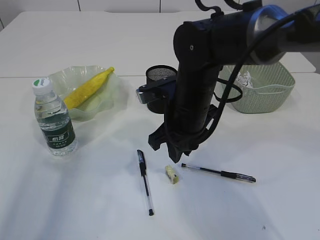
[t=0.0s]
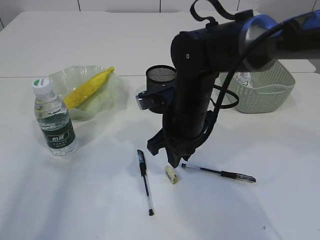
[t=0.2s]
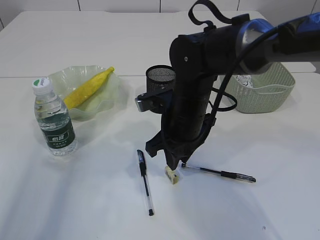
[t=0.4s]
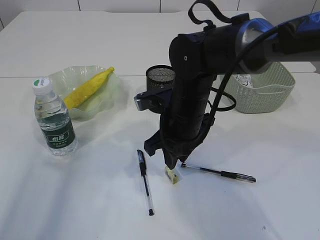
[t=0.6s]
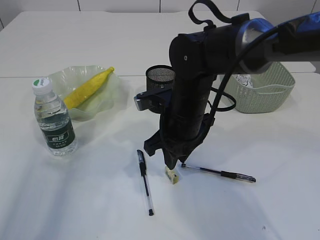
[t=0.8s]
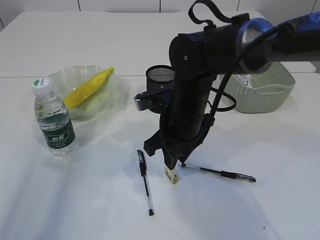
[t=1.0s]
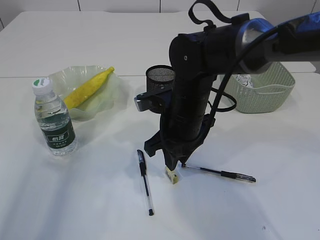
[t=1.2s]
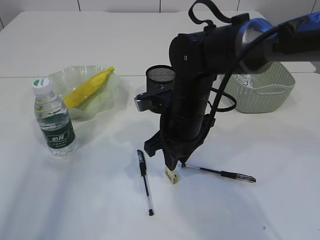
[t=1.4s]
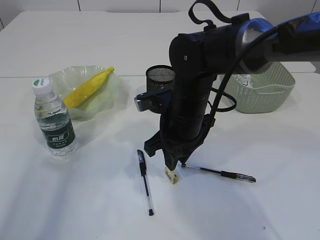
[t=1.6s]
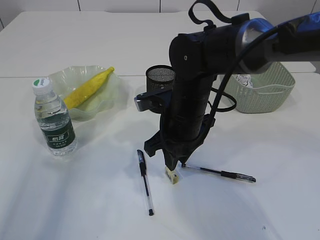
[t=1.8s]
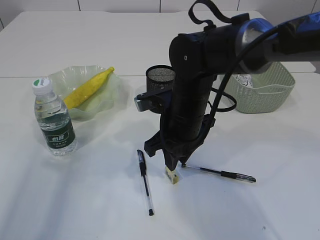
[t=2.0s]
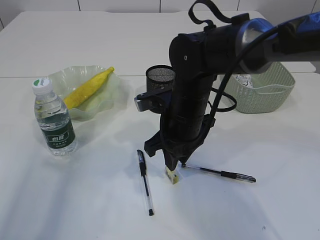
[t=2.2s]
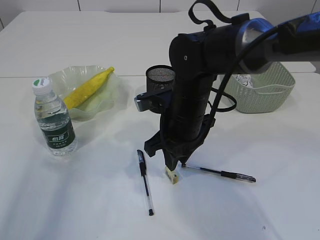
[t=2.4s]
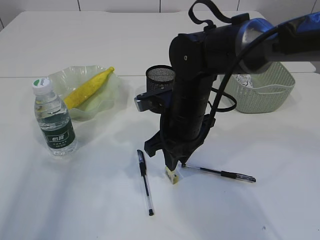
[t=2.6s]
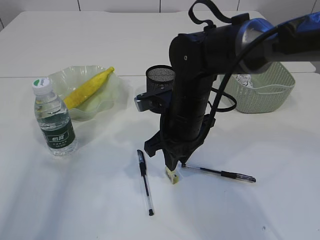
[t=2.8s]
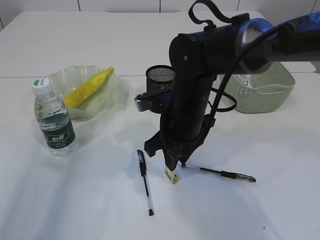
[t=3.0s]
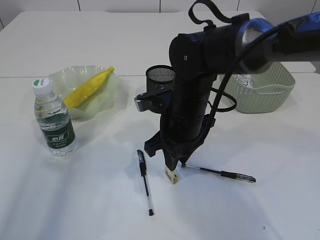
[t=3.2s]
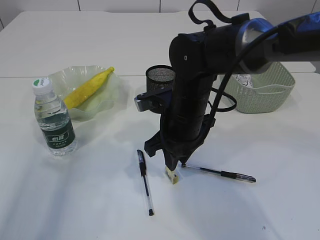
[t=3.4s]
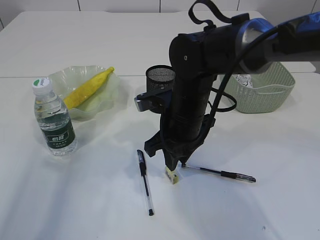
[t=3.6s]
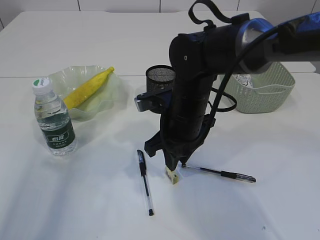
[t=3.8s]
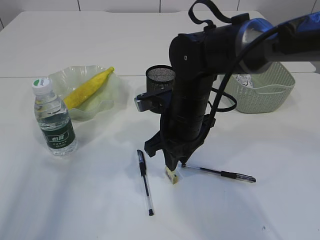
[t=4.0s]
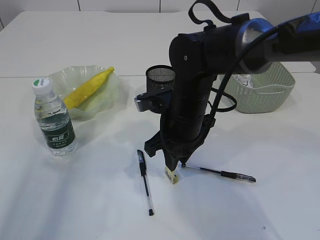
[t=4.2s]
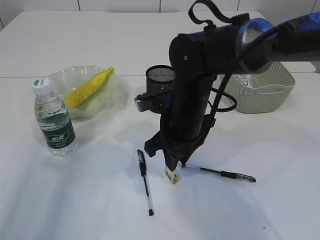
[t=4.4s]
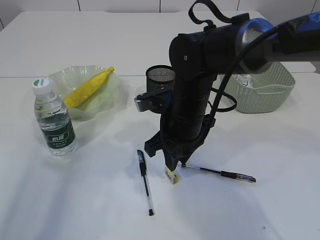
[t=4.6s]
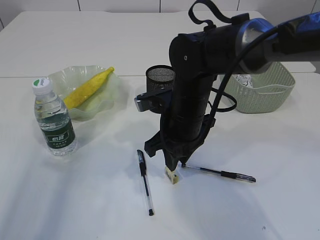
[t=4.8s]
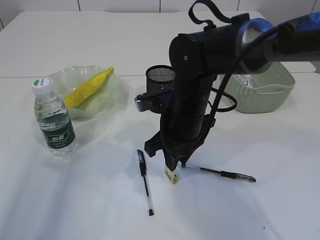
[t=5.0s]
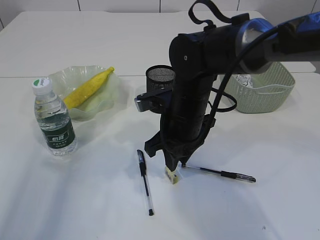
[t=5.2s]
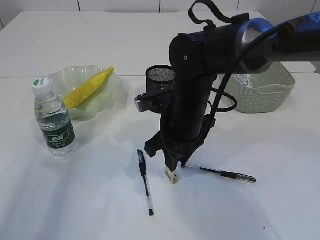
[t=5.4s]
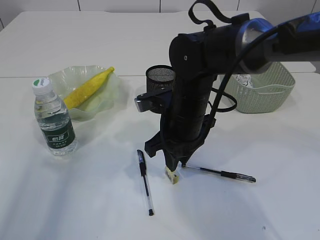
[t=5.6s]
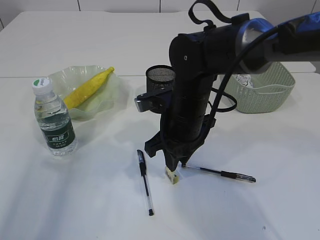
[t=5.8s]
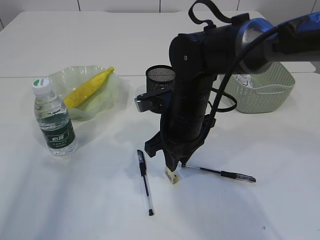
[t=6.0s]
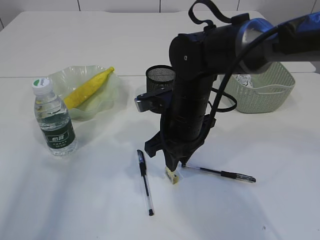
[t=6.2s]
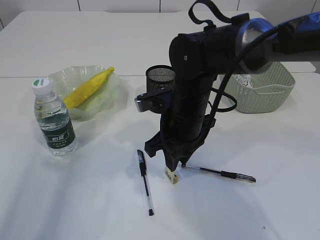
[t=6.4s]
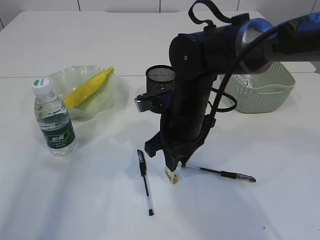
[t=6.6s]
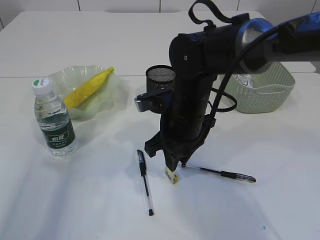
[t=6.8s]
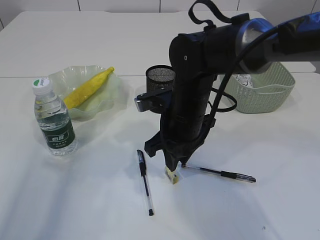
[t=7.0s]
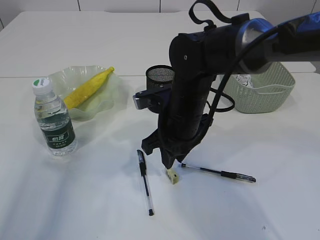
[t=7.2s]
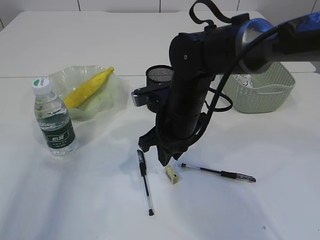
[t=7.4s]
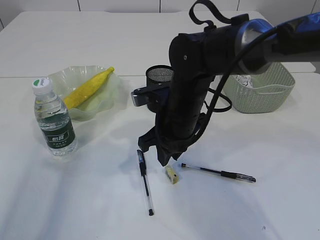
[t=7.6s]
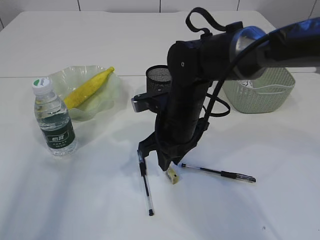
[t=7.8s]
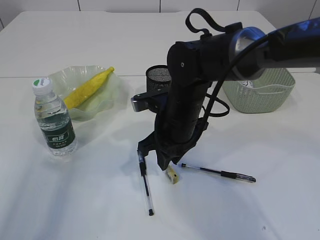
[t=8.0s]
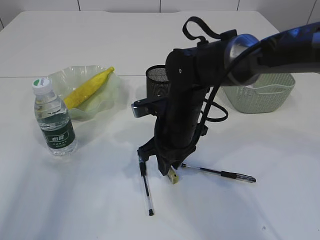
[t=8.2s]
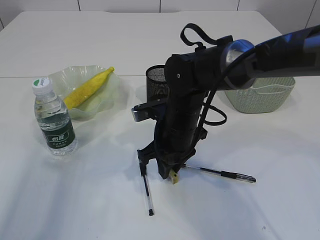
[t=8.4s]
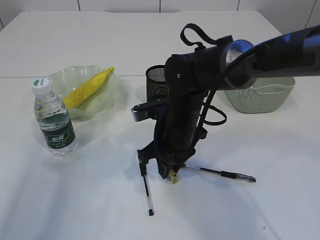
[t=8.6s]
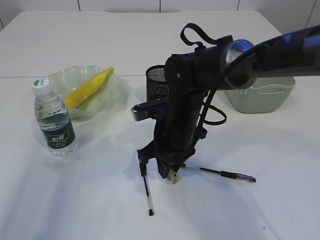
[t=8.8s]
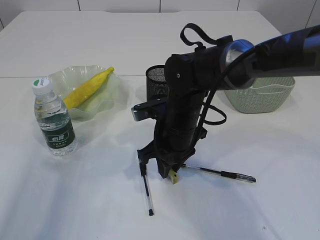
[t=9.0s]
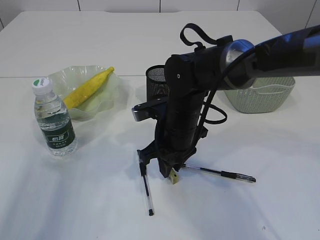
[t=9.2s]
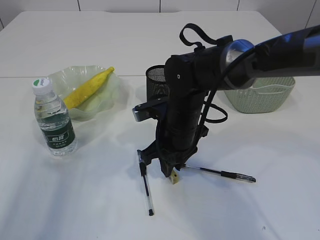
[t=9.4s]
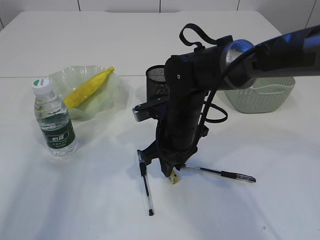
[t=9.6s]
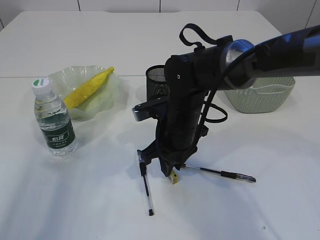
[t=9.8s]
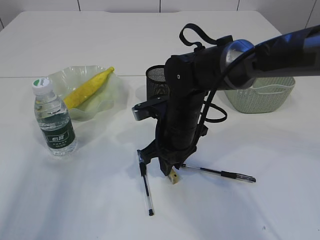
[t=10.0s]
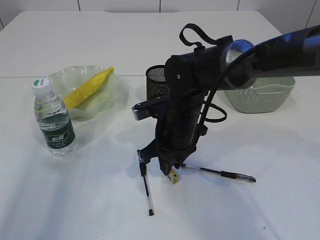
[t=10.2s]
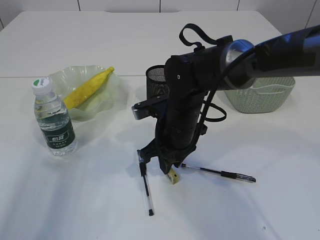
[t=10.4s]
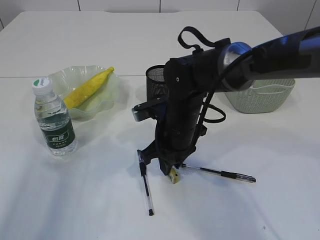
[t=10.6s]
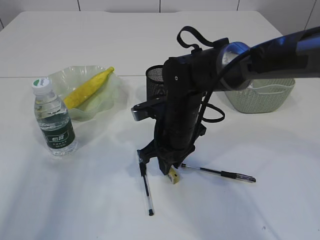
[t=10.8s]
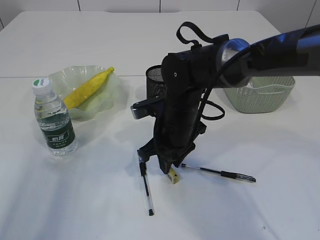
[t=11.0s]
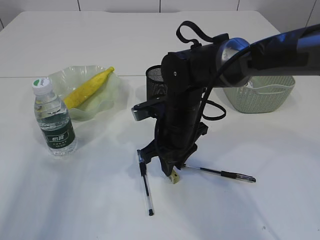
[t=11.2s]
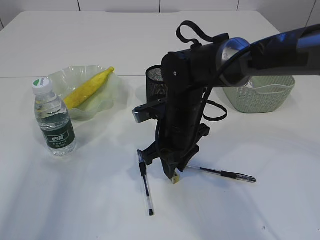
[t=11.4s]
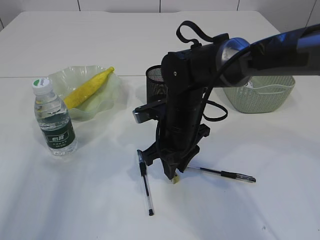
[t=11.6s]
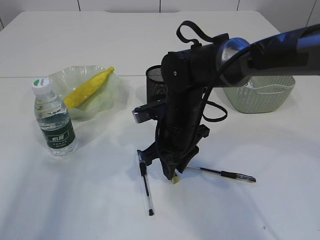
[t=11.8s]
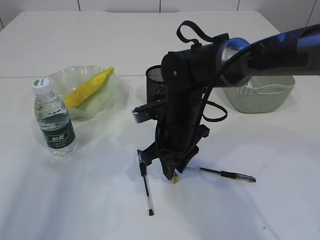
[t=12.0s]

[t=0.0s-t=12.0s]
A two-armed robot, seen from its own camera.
t=0.0s to t=1.6s: There are only small adjustments of the grippers.
t=1.6s to t=7.6s: Both grippers stay about where they are.
t=7.6s to t=9.0s: The grippers make only small movements.
t=9.0s to t=10.4s: Both grippers stay about where they are.
t=10.4s to t=12.0s: There are only small adjustments of the grippers.

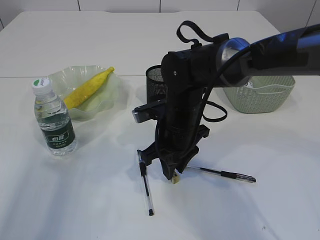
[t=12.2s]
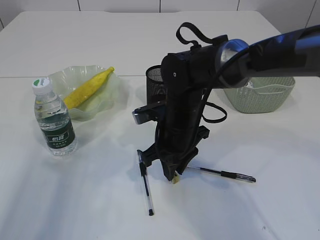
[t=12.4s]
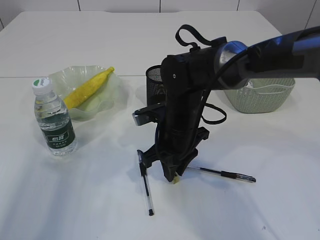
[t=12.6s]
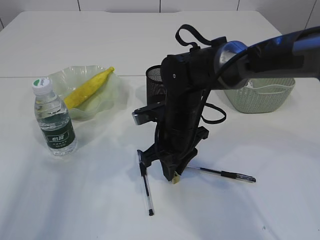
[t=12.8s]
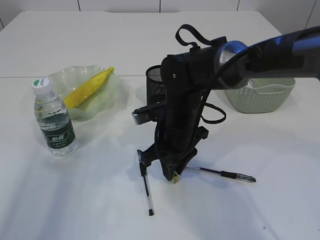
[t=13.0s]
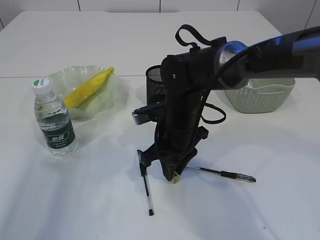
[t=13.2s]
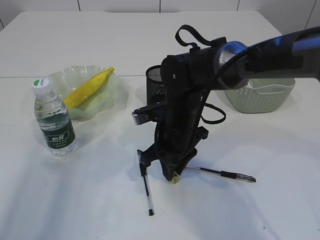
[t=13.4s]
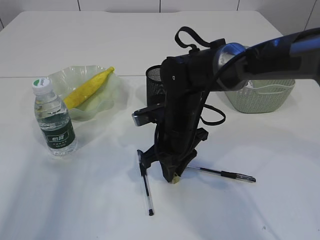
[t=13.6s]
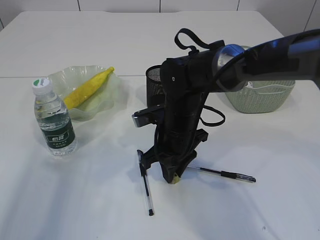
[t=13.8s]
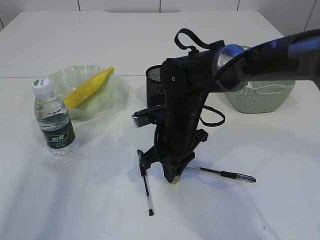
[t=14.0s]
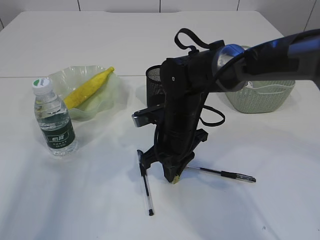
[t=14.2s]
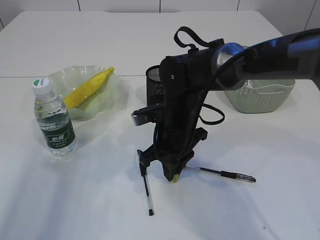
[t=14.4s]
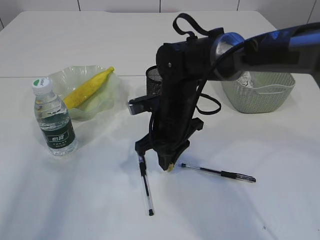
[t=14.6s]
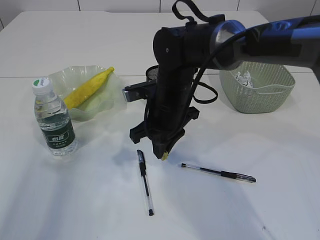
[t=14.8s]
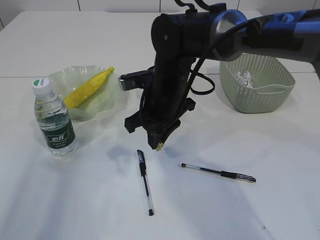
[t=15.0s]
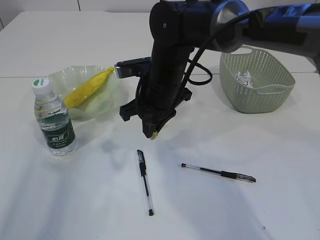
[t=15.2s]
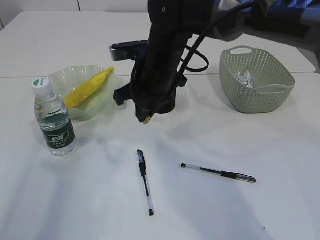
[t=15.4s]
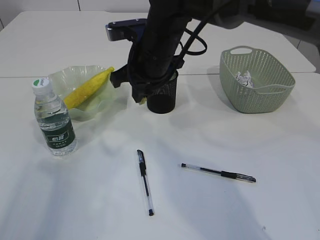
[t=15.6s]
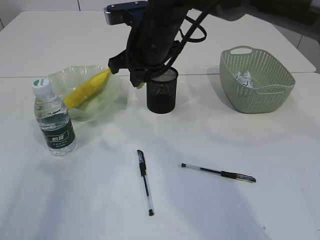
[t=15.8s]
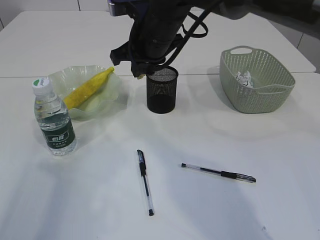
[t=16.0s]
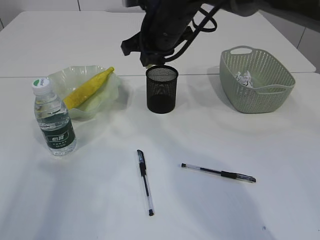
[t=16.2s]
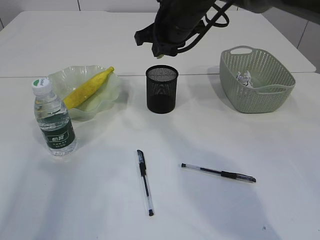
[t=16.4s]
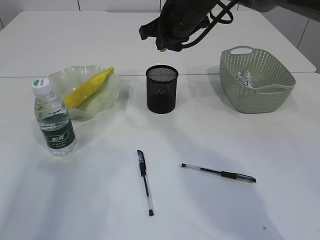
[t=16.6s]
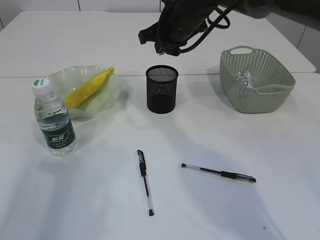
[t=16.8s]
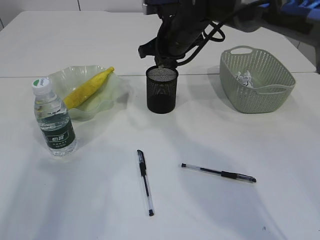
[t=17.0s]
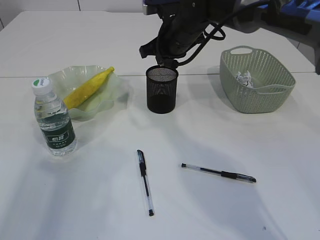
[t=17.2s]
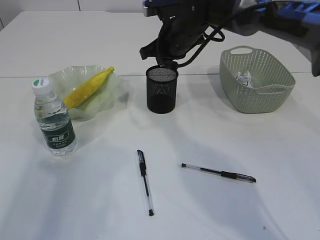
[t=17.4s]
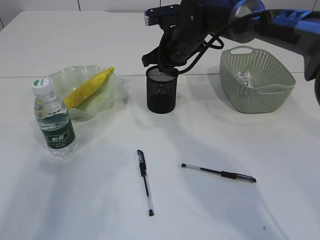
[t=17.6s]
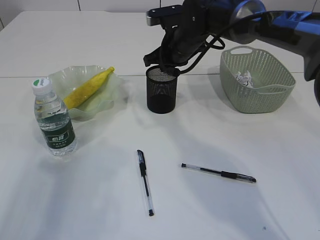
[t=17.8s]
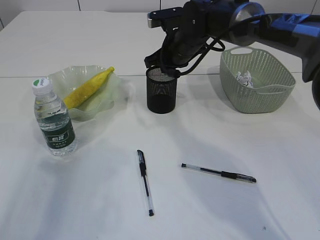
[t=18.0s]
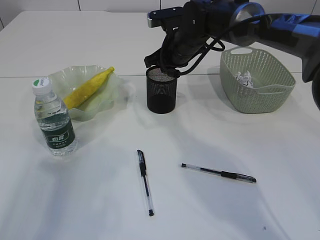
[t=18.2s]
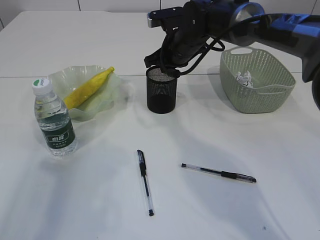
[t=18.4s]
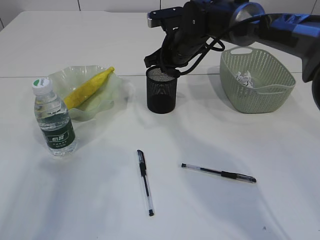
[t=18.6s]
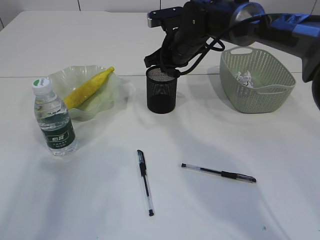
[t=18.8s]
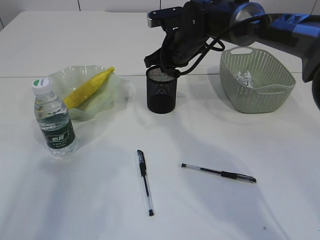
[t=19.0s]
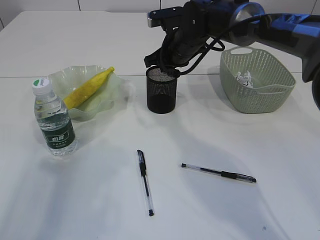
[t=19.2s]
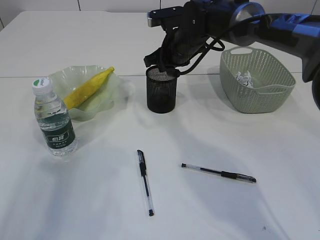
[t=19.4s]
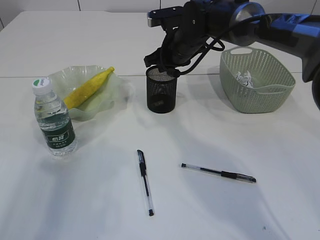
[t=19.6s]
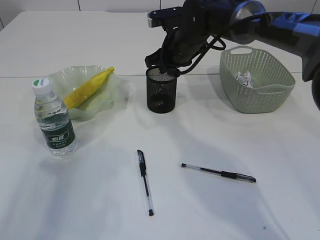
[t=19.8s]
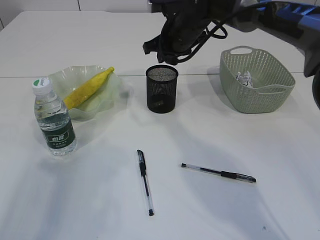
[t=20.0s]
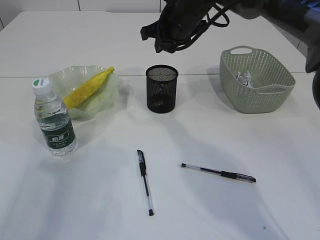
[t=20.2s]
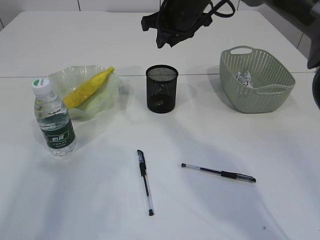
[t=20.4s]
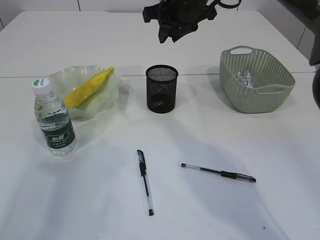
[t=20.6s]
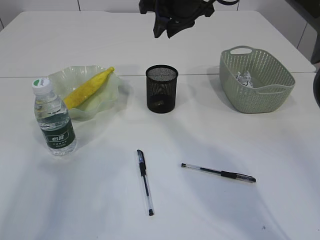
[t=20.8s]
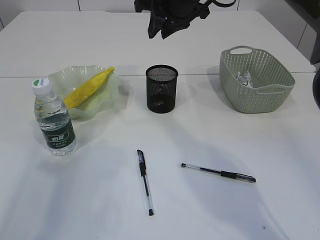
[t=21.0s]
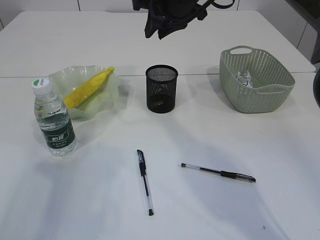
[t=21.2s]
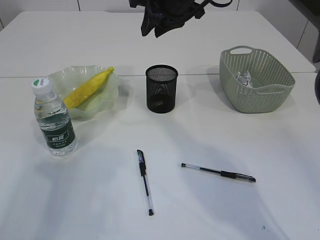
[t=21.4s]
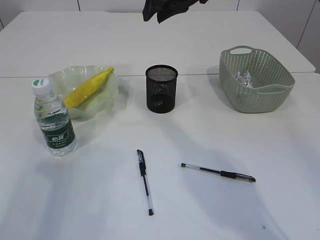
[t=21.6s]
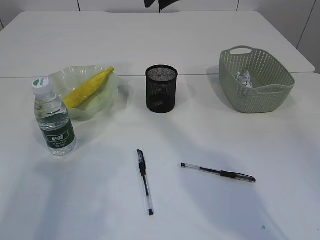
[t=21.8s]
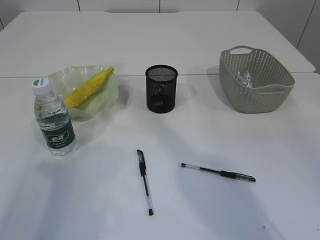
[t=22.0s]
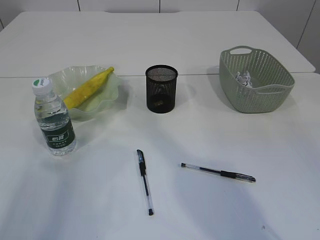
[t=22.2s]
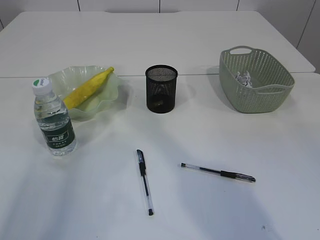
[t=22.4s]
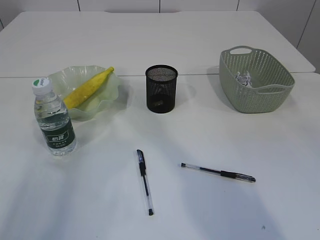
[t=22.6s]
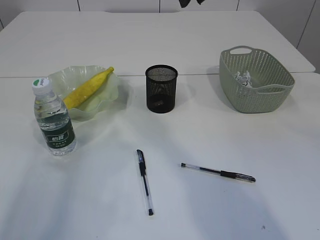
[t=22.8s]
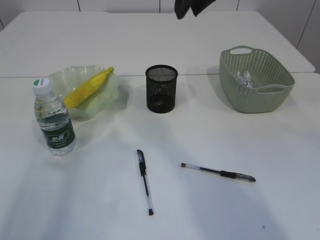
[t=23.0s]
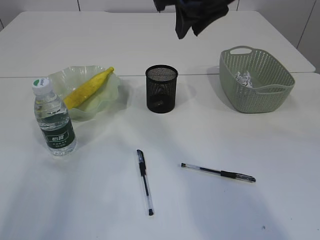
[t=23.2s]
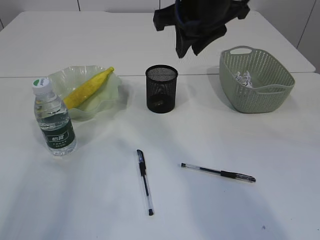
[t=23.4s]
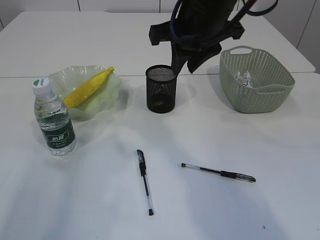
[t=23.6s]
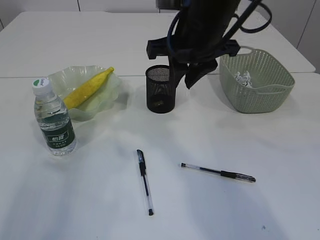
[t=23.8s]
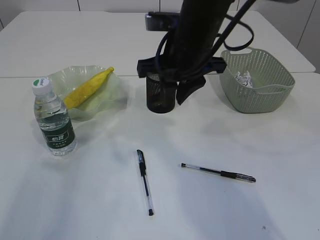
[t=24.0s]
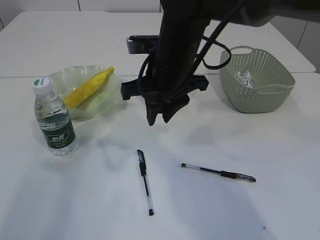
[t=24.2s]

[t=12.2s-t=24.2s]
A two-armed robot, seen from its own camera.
Step, t=12.2s to t=15.0s: Pick up the eraser.
Step, t=15.2s to t=20.4s: Place the eraser into the pen holder.
t=12.2s to t=13.8s: Both grippers stay about where they are.
t=13.8s to t=15.2s: The right gripper shifts roughly 5 cm upward.
t=15.2s to t=16.6s: The right gripper shifts roughly 10 cm forward and upward.
t=16.6s to t=18.2s: The right gripper is displaced downward by about 5 cm.
t=18.2s to t=19.8s: The right gripper opens.
t=19.8s to t=21.2s: The right gripper is displaced upward by some 10 cm.
t=21.2s to t=22.6s: The right gripper heads upward and backward, covering roughly 10 cm.
t=22.6s to t=24.2s: The right gripper is displaced downward by approximately 15 cm.
